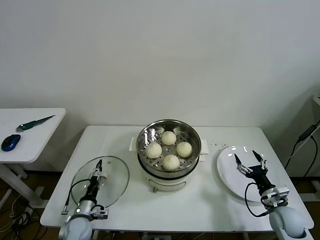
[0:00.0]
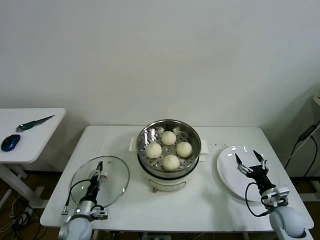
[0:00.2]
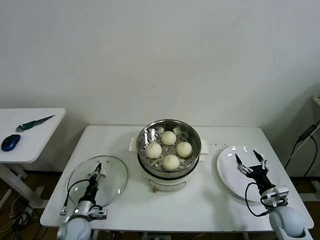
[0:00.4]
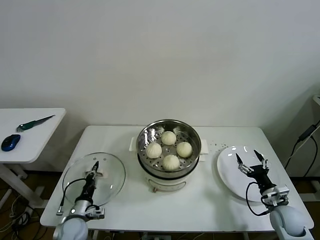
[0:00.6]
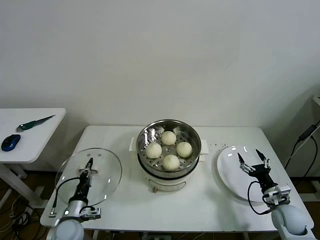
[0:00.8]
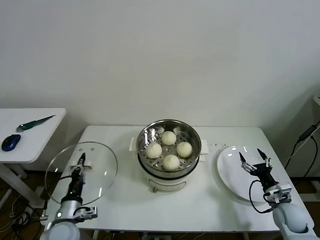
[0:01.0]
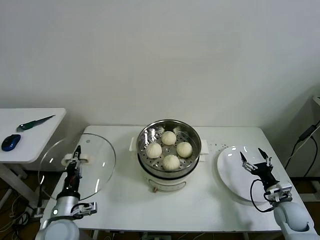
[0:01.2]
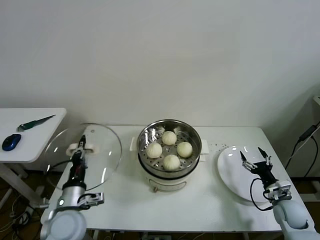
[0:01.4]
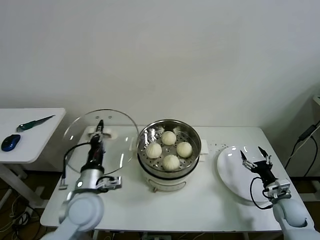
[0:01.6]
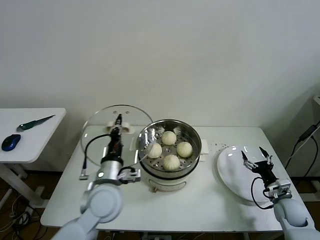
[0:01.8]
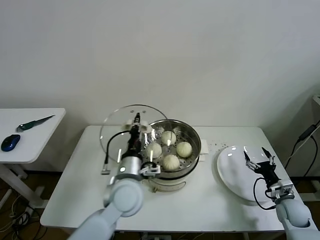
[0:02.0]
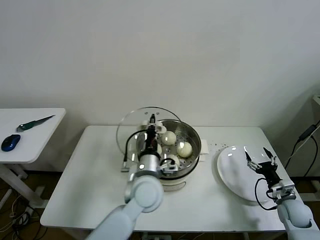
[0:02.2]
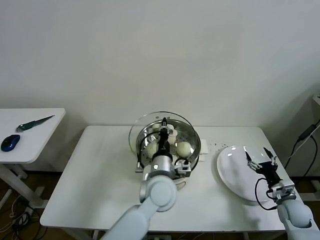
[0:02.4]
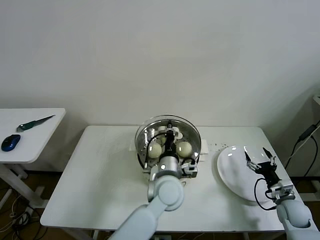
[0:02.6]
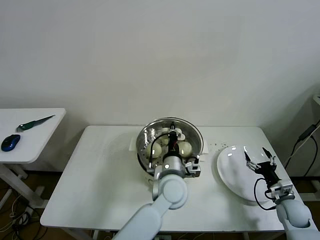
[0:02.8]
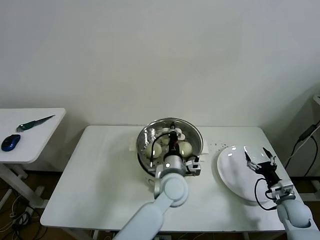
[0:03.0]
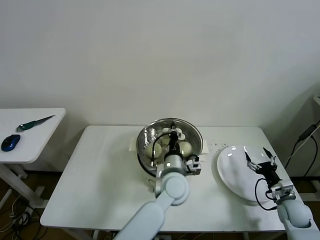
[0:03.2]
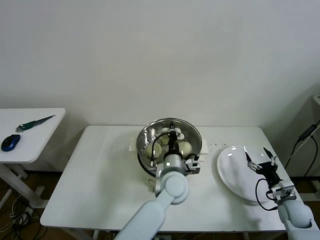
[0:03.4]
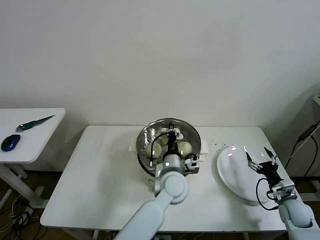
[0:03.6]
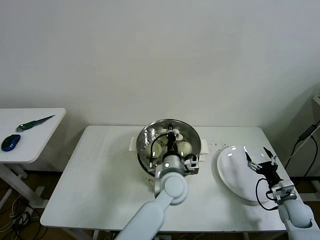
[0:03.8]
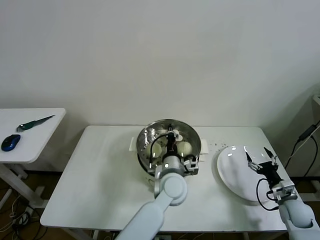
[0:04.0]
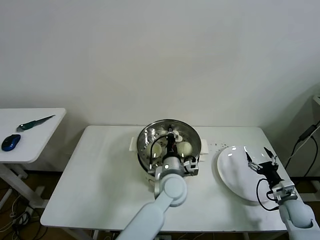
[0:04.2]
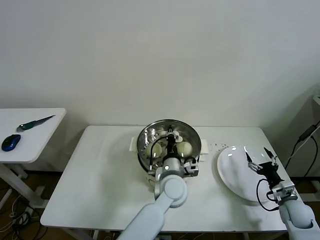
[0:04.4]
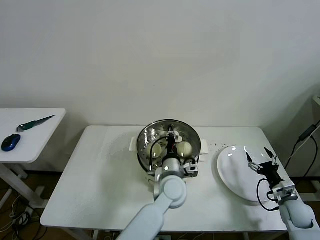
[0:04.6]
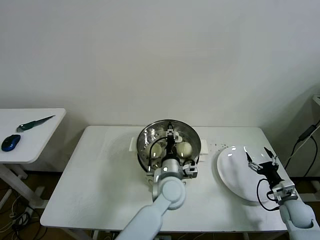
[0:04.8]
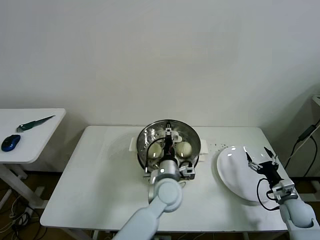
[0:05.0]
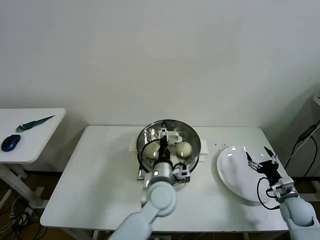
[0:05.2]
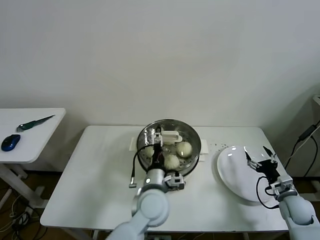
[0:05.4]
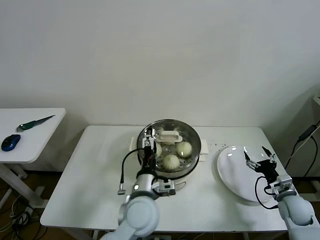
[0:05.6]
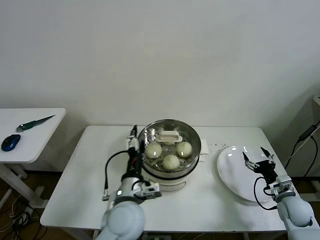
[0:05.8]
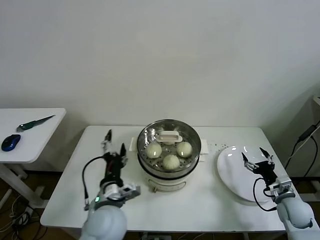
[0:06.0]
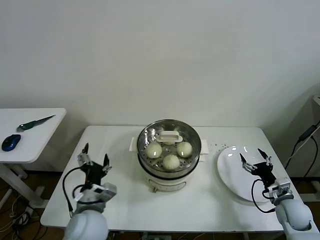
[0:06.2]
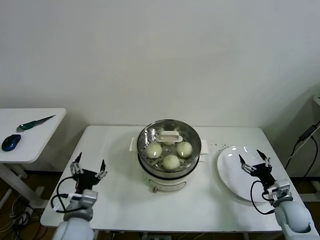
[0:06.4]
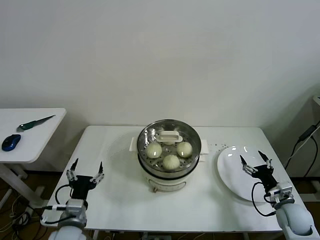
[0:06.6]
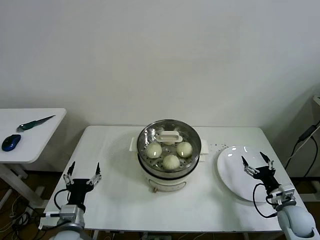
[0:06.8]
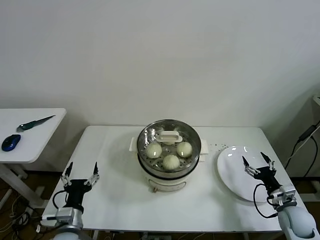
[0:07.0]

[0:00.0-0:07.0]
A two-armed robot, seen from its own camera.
Task of the whole recording: take steamed baozi put them in steamer then cover it.
Step, 0:00.6 to 0:04.6: Place the pot lid on the steamer with left gripper.
0:00.0 to 0:01.4: The left gripper is displaced upward by roughly 20 cm, and closes its fingers.
0:01.4 to 0:02.8: The left gripper heads to the right, covering about 30 cm.
0:02.8 to 0:04.2: The grippers make only small movements.
0:04.2 to 0:05.6: The left gripper goes about 10 cm to the left and backward, and opens its fingers.
0:05.6 to 0:07.0: The left gripper is displaced to the left by approximately 25 cm.

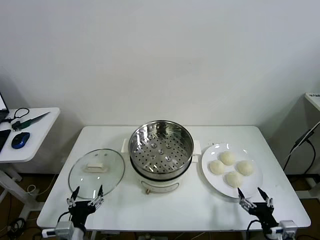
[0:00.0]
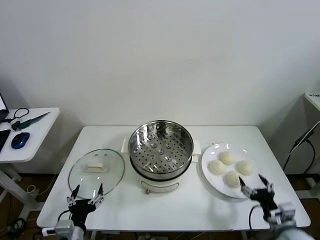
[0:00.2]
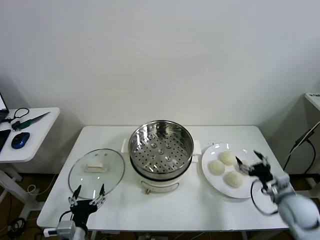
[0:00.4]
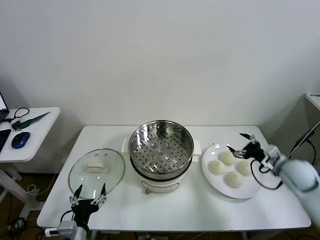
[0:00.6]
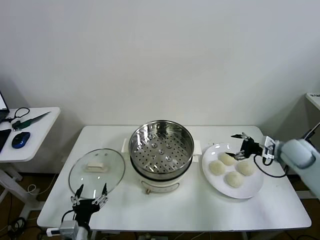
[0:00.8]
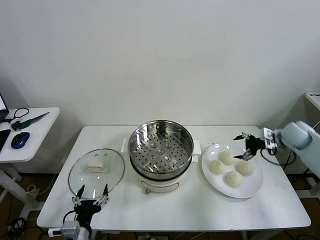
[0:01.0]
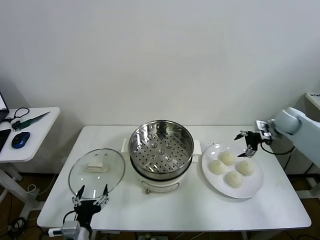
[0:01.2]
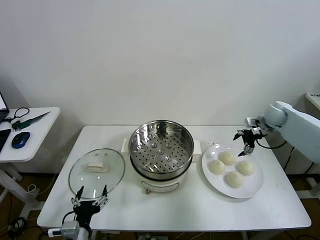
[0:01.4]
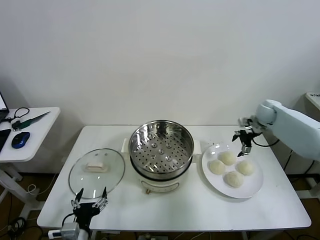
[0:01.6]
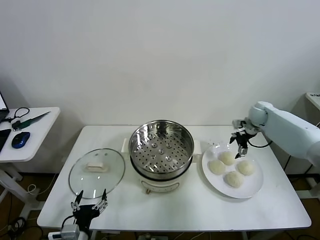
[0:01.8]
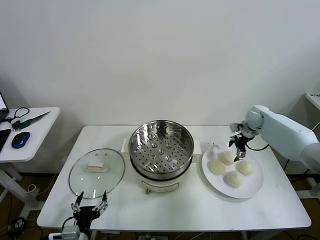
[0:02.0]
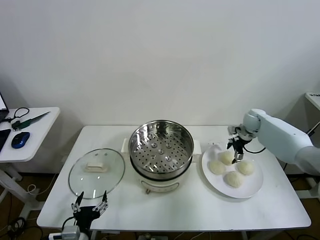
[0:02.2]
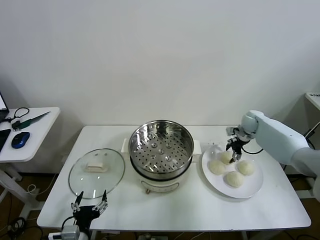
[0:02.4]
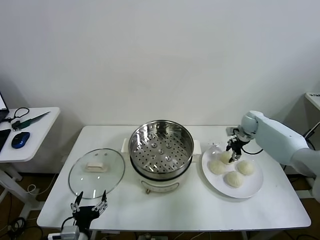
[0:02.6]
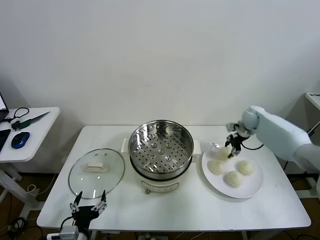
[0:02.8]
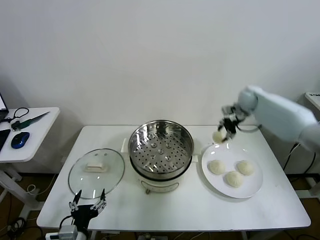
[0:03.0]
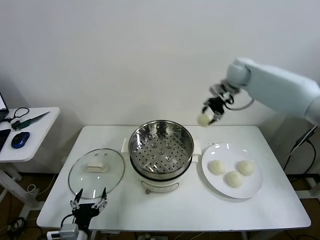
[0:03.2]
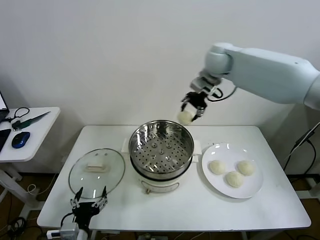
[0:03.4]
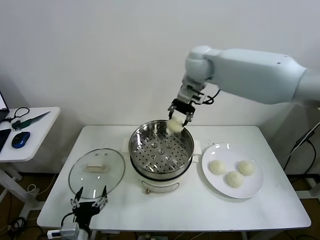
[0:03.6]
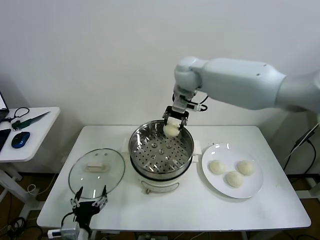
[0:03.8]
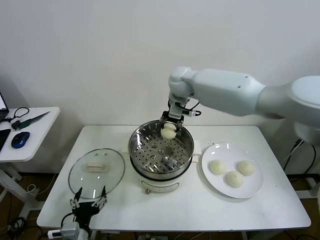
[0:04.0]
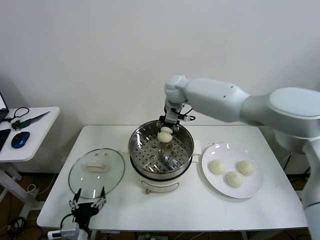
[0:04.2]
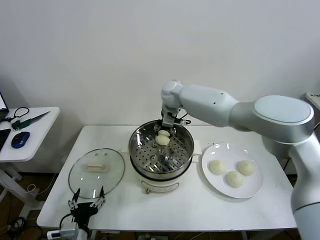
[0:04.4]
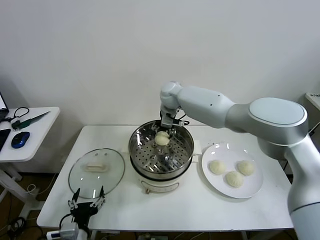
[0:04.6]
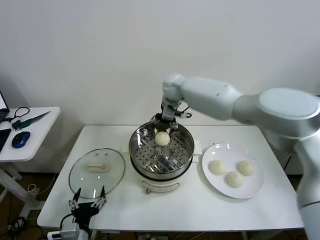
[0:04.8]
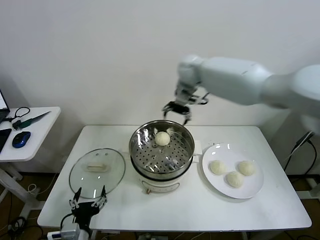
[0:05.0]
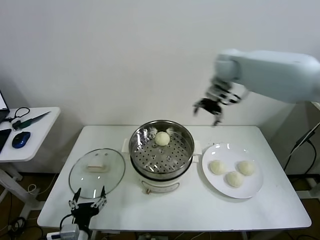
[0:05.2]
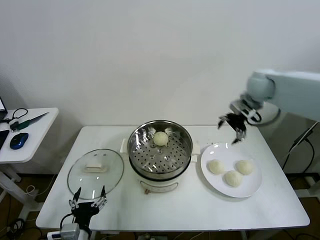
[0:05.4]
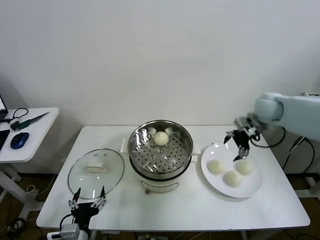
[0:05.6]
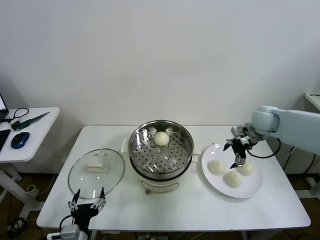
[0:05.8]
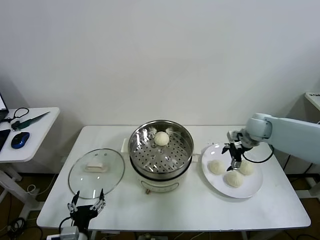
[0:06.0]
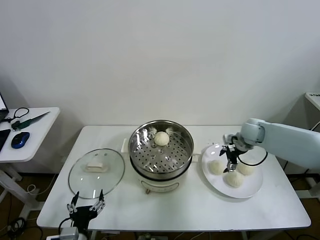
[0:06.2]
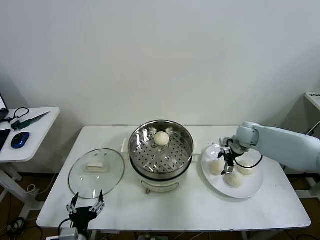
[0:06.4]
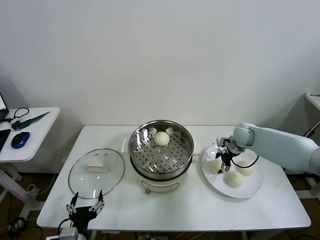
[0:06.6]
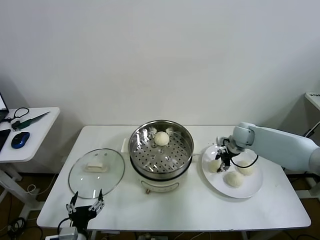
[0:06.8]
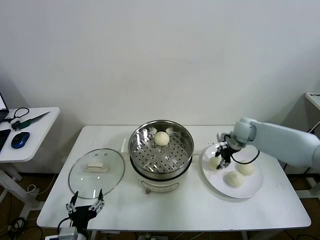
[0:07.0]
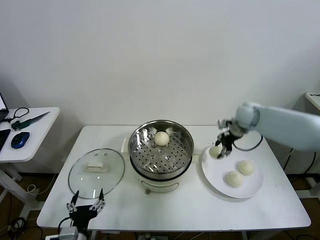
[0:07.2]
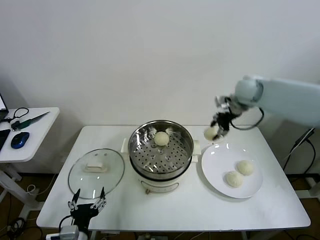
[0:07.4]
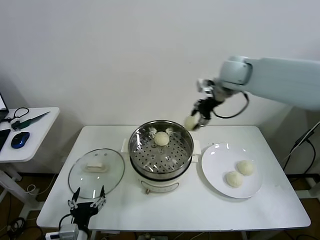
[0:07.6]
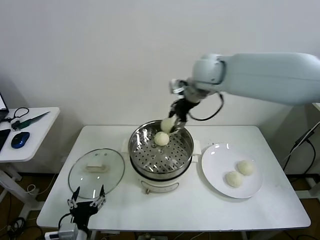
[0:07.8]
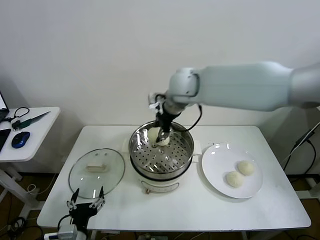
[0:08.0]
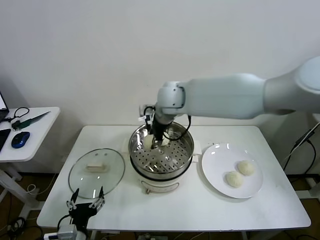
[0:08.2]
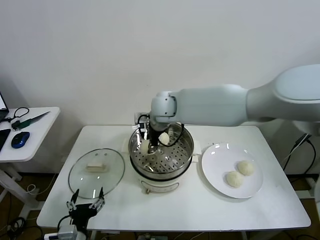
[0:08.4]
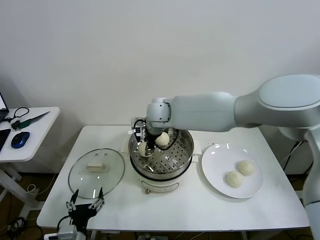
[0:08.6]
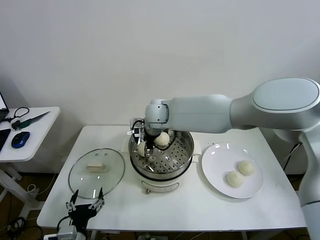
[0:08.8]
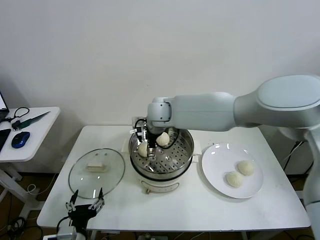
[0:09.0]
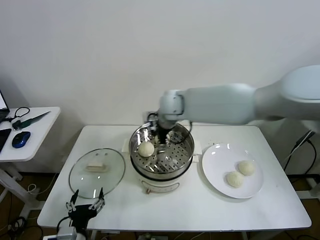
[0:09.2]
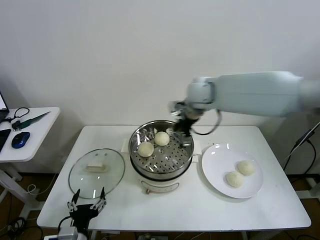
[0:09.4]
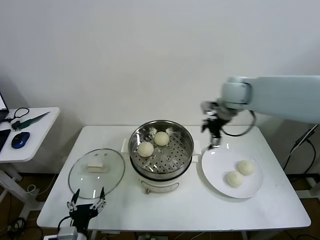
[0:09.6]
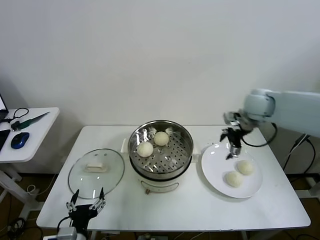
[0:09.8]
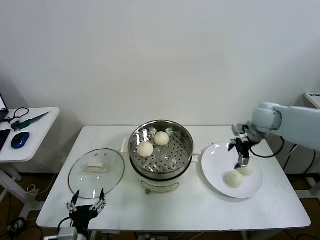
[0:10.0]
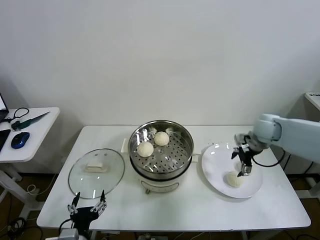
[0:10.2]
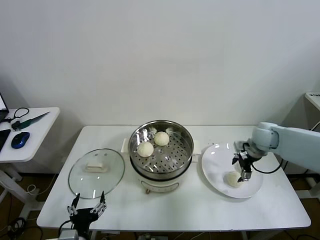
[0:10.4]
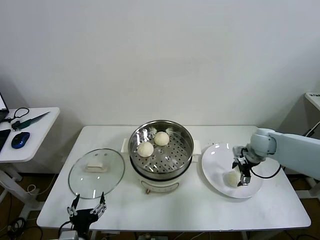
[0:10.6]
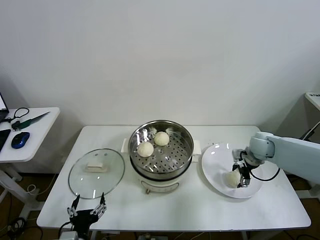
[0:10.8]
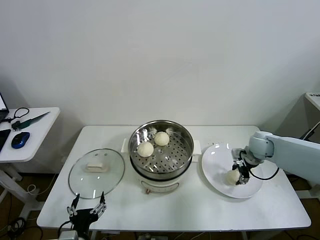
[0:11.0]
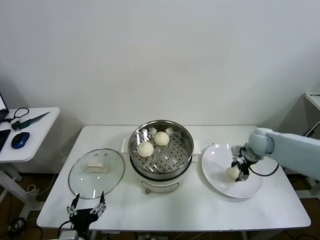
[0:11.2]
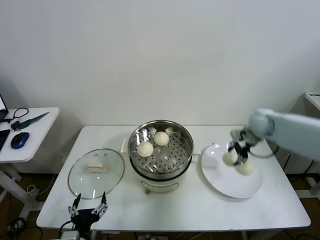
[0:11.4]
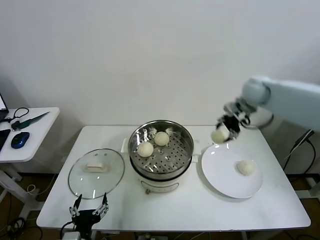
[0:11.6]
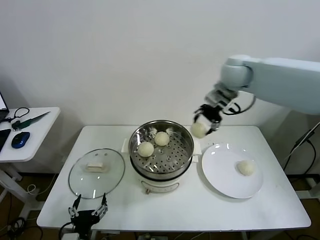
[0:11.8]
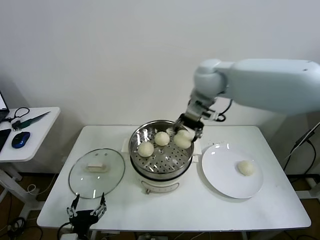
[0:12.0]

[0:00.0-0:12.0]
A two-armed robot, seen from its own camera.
Task of the whole recording: take steamed baozi put them in steamer then cover it.
Step, 0:00.0 to 0:02.4: Grasp the baozi in the plate with right gripper.
Step, 0:02.6 to 0:04.6: Place the baozi on the steamer with right gripper.
Step, 0:04.8 to 0:06.6: Grasp the baozi in the plate with right gripper.
Step, 0:06.8 to 0:08.8: Place the baozi on the steamer with right gripper.
Step, 0:09.0 to 0:10.8: Grasp the baozi in the plate with right gripper.
0:01.6 to 0:03.0: The right gripper shifts some 15 cm upward and to the left, and closes up.
0:03.0 to 0:04.4: The right gripper shifts approximately 25 cm to the left.
0:04.4 to 0:06.0: The right gripper goes roughly 30 cm to the right, and opens up.
0:06.0 to 0:07.6: The right gripper heads upward and to the left, covering roughly 30 cm, and closes.
0:07.6 to 0:09.0: The right gripper is displaced to the left and downward by some 20 cm, and opens.
0:09.0 to 0:10.4: The right gripper moves to the right, about 35 cm.
0:10.4 to 0:12.0: The right gripper shifts some 35 cm to the left and upward, and closes.

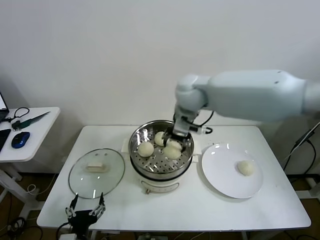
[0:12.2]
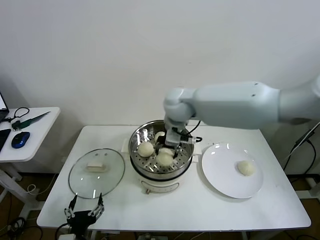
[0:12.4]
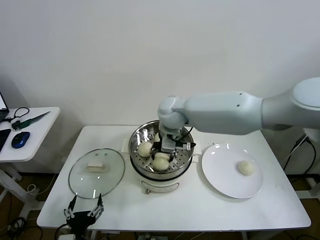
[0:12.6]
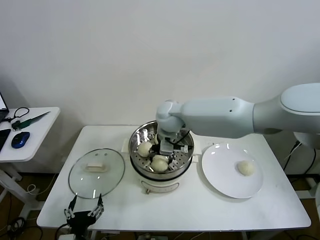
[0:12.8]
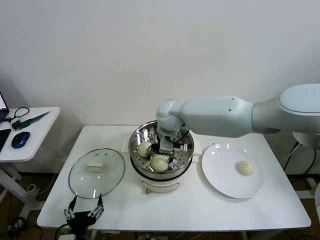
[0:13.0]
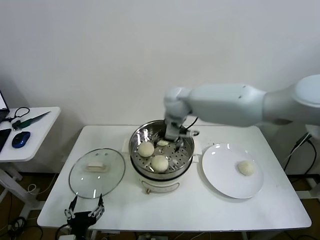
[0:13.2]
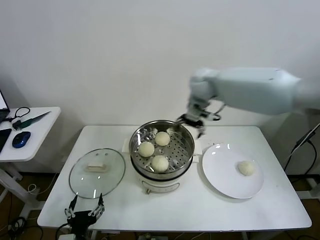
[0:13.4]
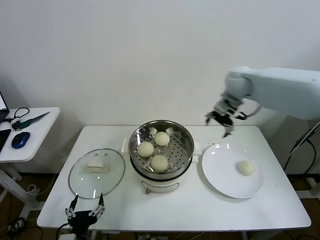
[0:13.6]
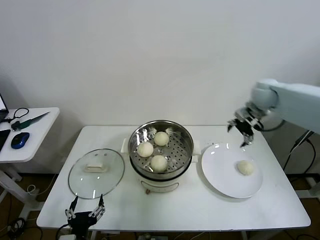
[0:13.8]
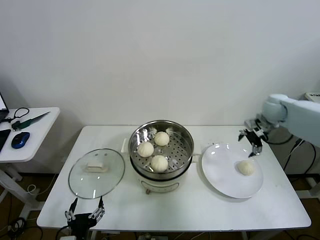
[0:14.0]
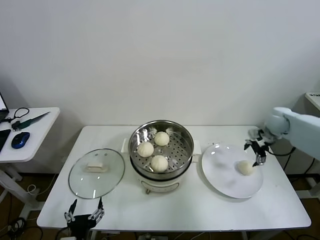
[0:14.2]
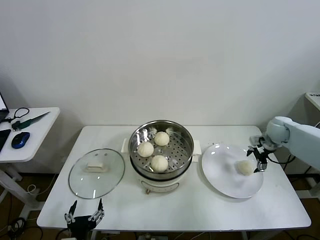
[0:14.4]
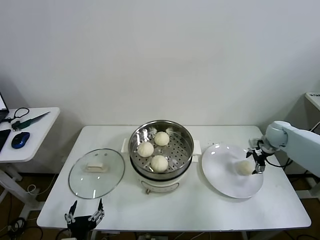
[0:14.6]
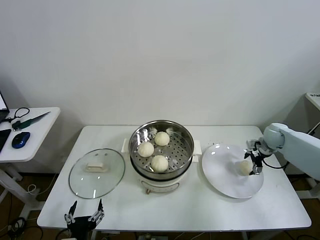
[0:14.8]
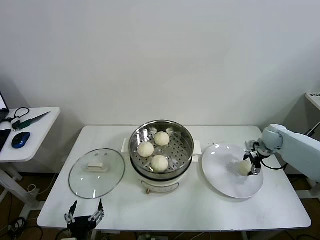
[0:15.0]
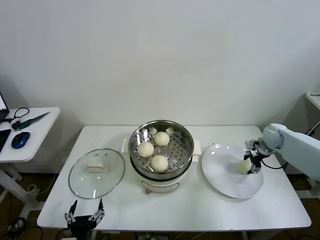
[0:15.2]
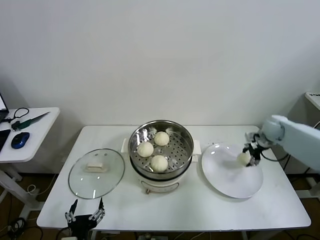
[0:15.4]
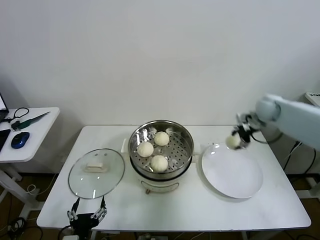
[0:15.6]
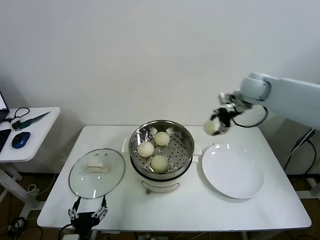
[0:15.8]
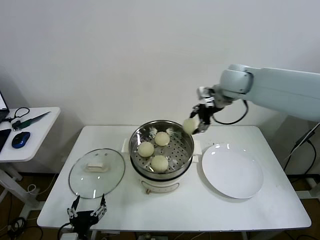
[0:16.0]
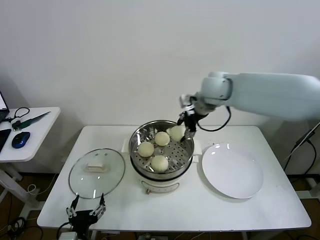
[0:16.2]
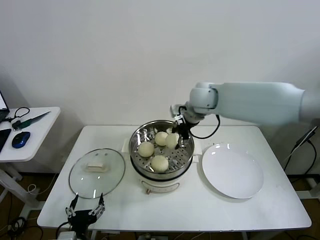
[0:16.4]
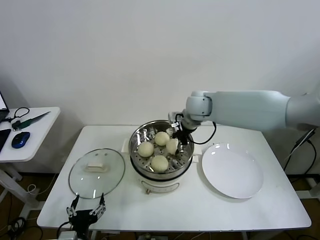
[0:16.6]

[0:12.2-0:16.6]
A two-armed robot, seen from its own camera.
Task of the whole recording: take steamed baozi put them in steamer then cover it.
Step, 0:13.2 to 0:15.0: Grasp the baozi in the plate with right gripper.
0:12.2 to 0:13.6: The right gripper goes approximately 20 cm to the right, and opens.
0:13.6 to 0:15.2: The right gripper shifts roughly 30 cm downward and to the right, and closes its fingers.
0:15.2 to 0:16.6: The right gripper goes about 35 cm to the left and upward.
